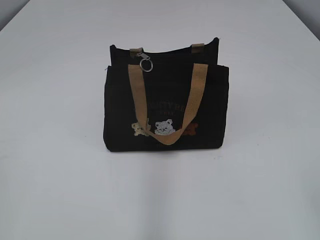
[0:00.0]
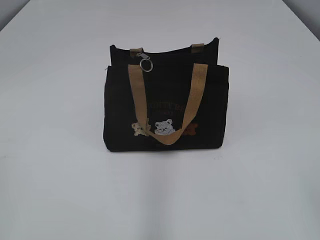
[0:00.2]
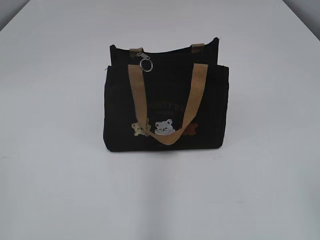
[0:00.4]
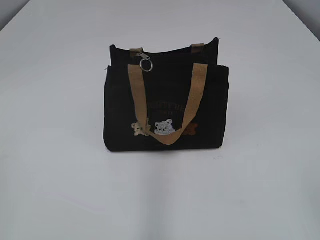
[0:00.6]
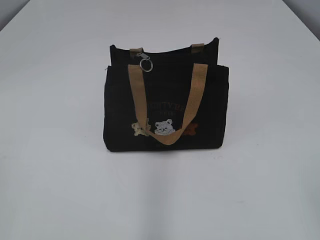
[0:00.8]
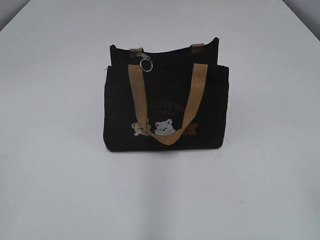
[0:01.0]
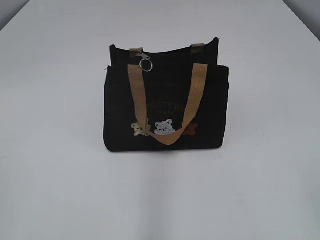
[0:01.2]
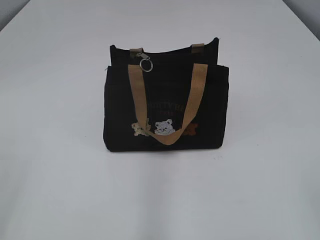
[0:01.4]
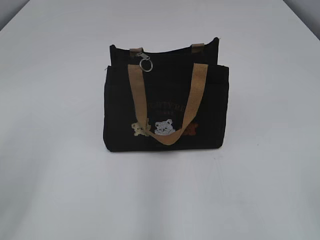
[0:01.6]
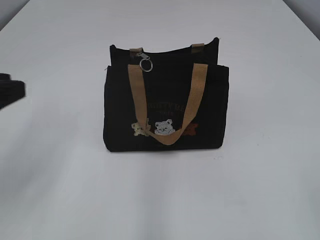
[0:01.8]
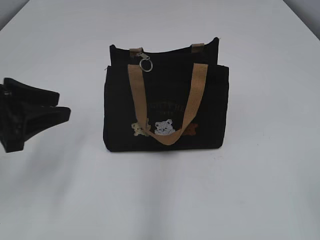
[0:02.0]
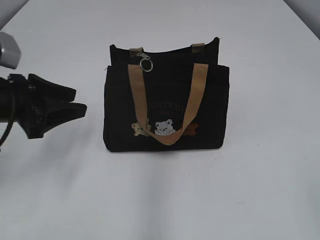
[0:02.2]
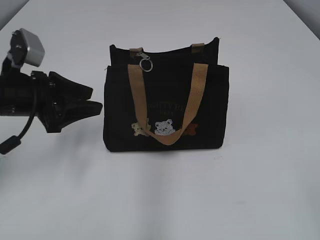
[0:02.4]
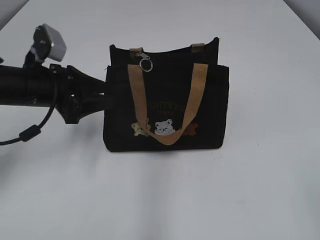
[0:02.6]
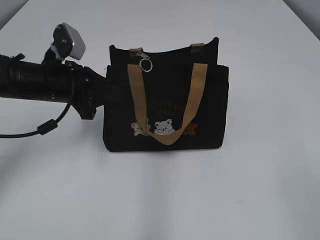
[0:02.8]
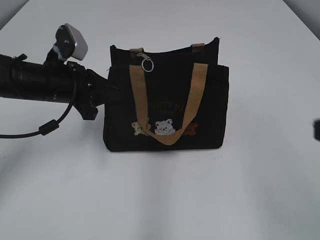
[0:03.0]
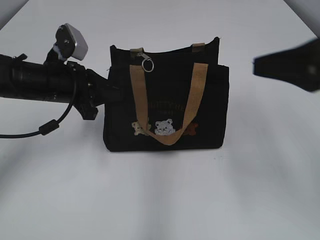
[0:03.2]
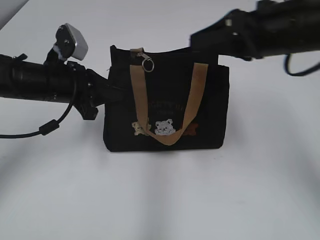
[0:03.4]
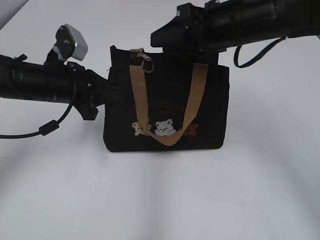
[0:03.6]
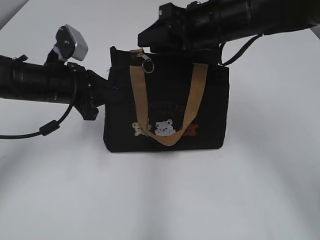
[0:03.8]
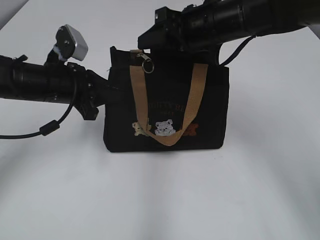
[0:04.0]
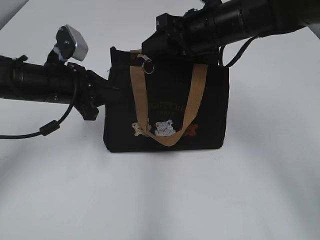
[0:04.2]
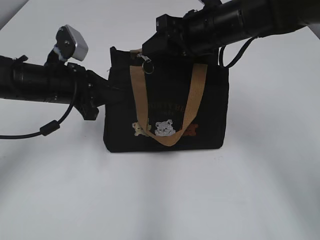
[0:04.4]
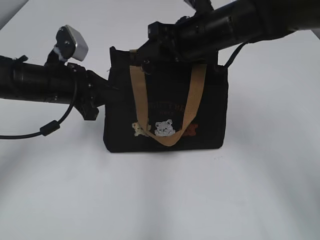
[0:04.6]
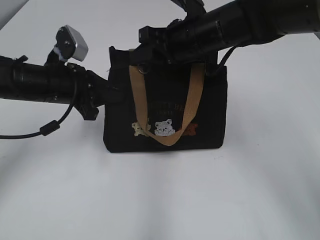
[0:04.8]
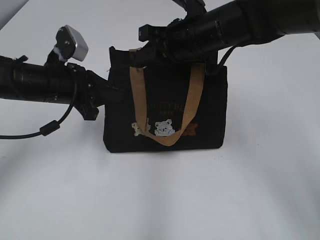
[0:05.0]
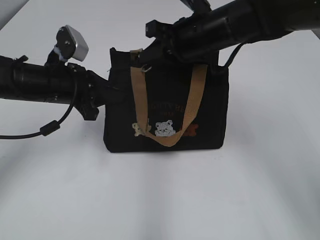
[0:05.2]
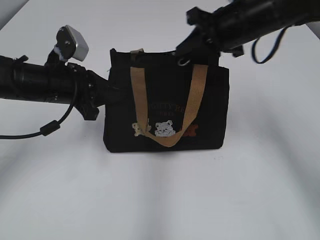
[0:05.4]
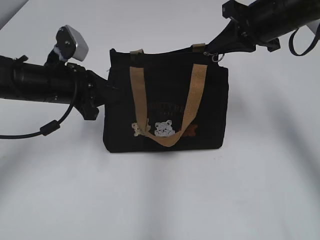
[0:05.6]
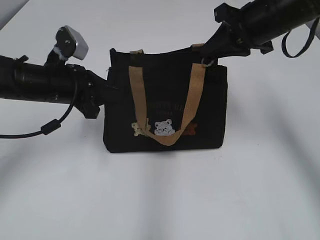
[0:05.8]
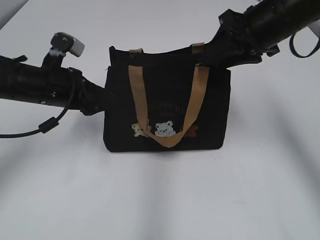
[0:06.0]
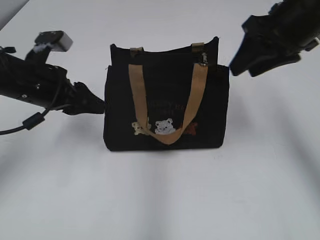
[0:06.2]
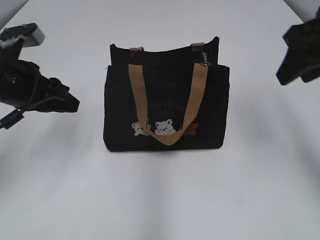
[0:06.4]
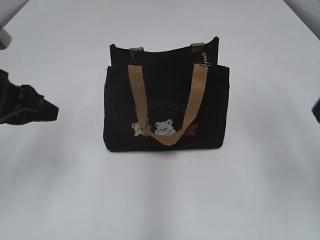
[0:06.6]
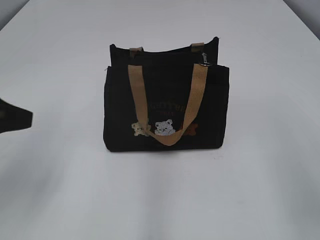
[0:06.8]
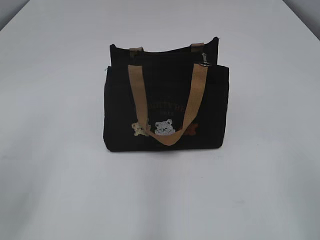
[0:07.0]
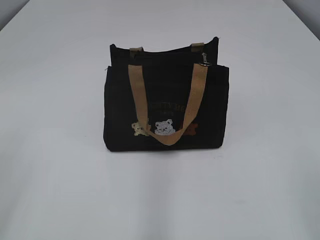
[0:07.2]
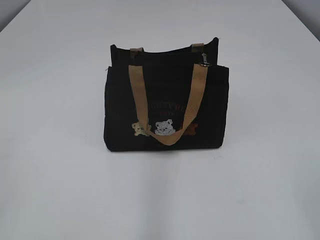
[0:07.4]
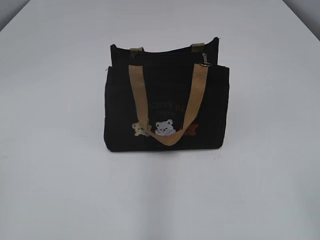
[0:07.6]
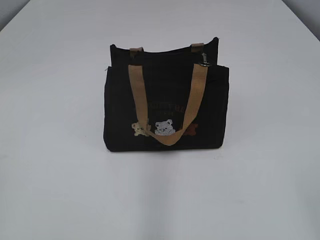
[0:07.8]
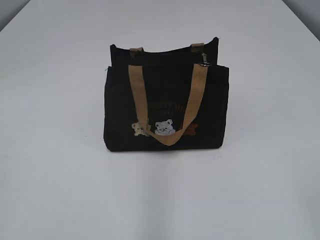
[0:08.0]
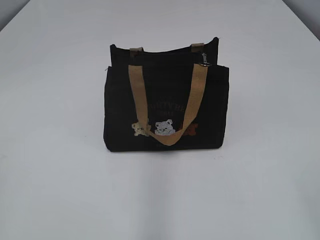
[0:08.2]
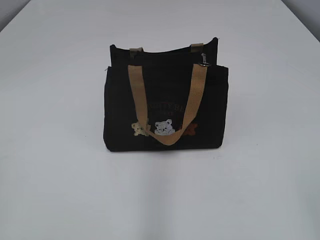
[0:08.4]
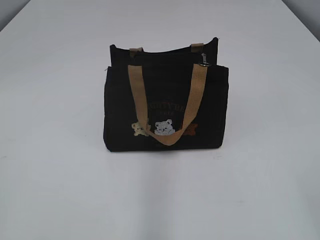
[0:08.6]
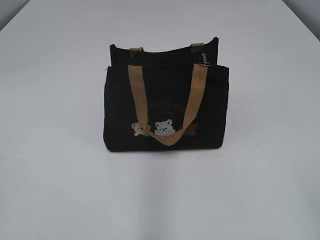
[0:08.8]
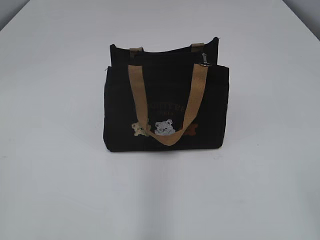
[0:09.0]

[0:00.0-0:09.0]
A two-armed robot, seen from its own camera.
Step, 0:00.0 to 0:06.0: Pull open the zipper with your right hand.
0:01.6 to 0:03.0: The left gripper goes some 30 cm forward, downward and to the right, and closes; the right gripper travels forward by roughly 10 cm.
0:03.0 to 0:04.4: The right gripper moves forward and to the left, some 35 cm.
0:04.4 to 0:06.0: The right gripper shifts roughly 10 cm to the right, and closes, then opens again; the left gripper opens up.
0:06.0 to 0:07.6: The right gripper travels backward by some 35 cm, while the left gripper is displaced backward and to the left by approximately 35 cm.
